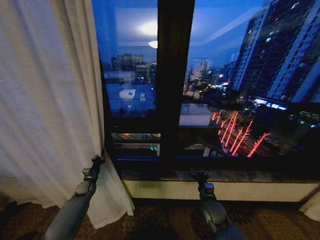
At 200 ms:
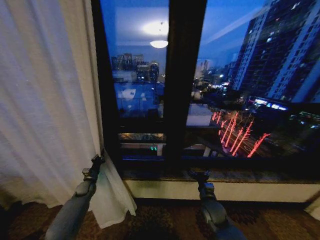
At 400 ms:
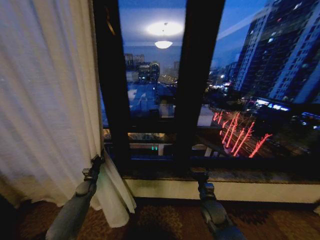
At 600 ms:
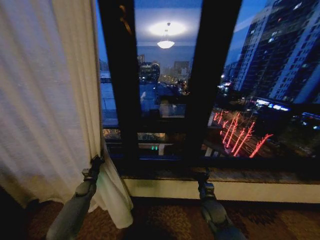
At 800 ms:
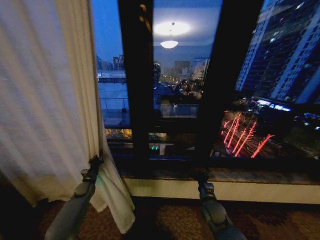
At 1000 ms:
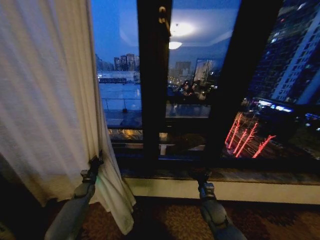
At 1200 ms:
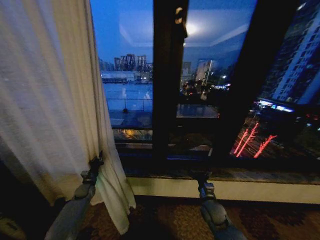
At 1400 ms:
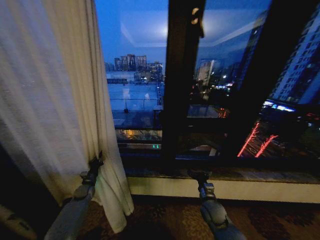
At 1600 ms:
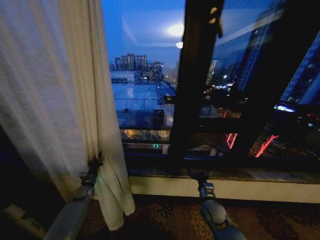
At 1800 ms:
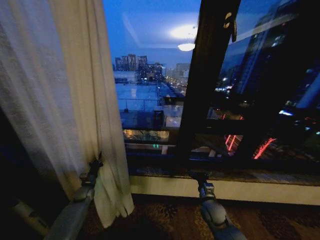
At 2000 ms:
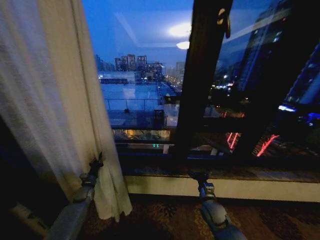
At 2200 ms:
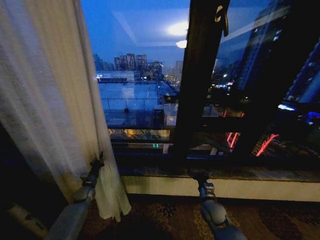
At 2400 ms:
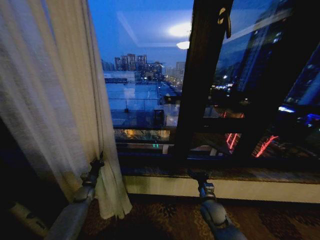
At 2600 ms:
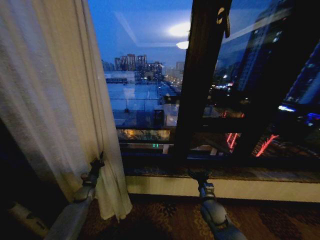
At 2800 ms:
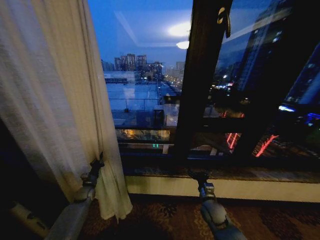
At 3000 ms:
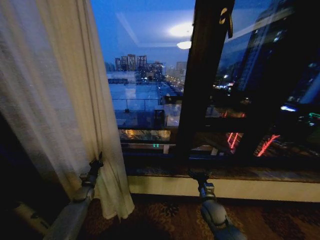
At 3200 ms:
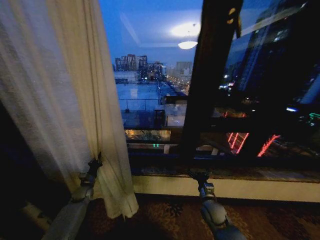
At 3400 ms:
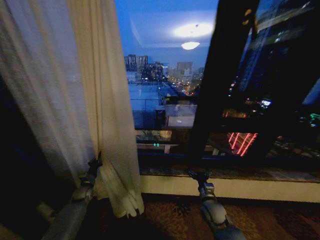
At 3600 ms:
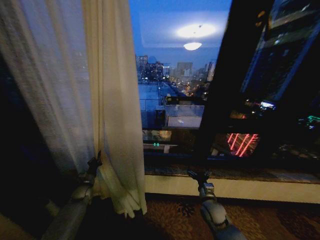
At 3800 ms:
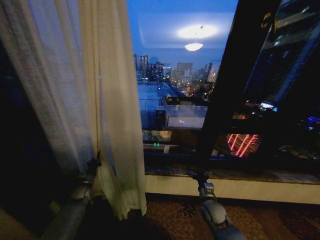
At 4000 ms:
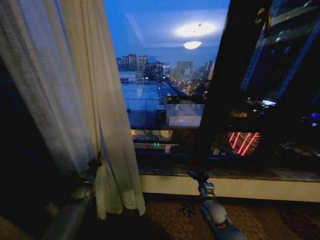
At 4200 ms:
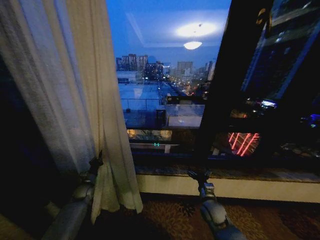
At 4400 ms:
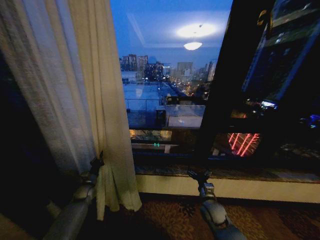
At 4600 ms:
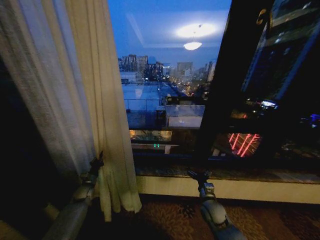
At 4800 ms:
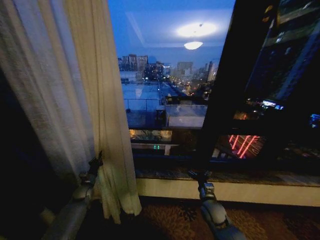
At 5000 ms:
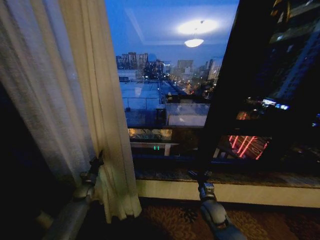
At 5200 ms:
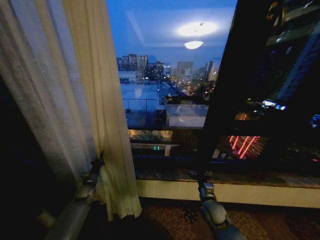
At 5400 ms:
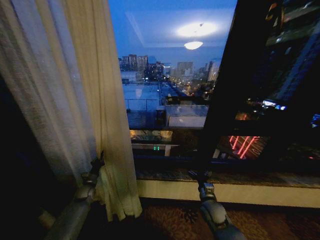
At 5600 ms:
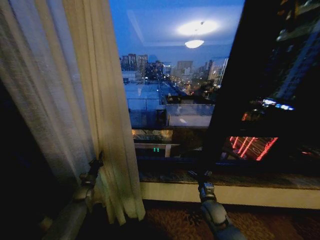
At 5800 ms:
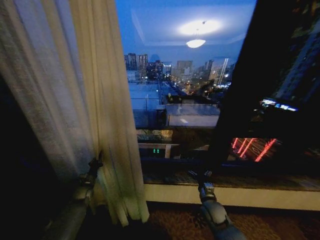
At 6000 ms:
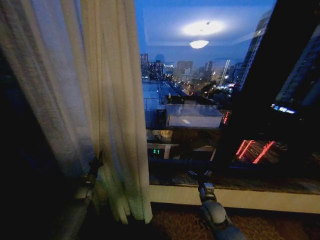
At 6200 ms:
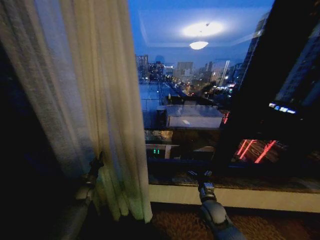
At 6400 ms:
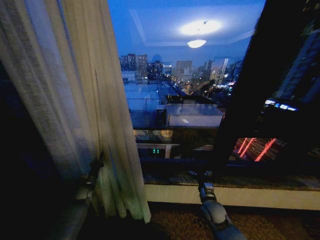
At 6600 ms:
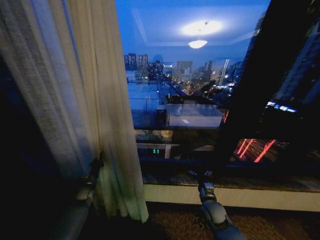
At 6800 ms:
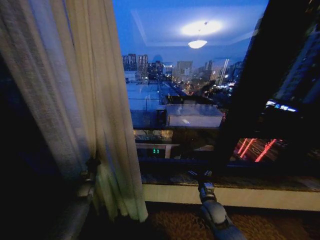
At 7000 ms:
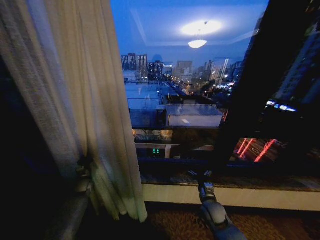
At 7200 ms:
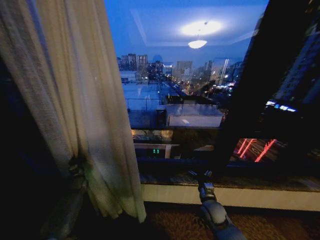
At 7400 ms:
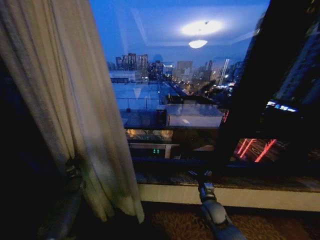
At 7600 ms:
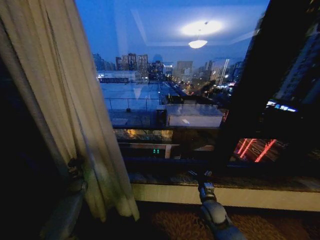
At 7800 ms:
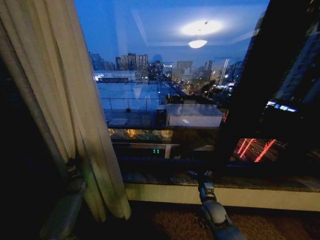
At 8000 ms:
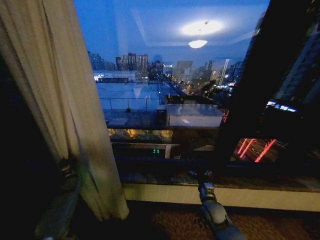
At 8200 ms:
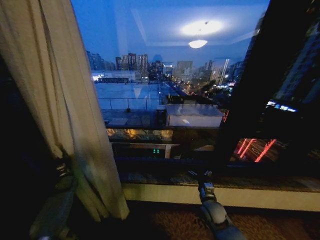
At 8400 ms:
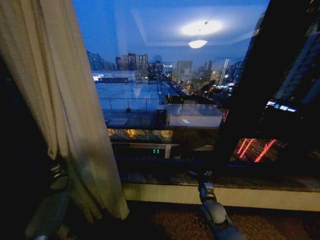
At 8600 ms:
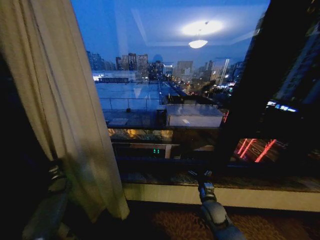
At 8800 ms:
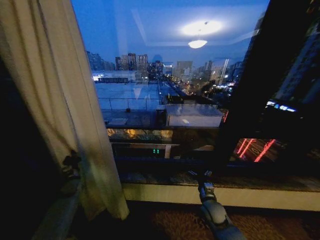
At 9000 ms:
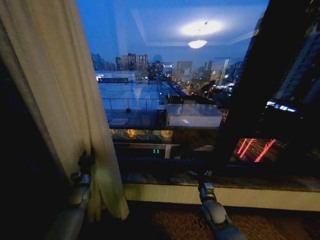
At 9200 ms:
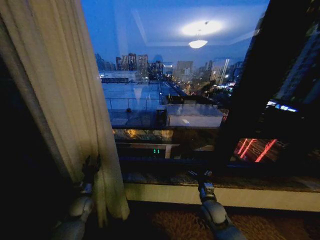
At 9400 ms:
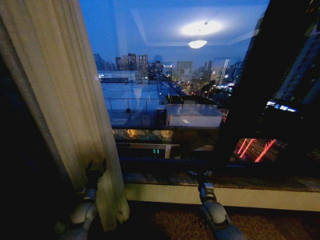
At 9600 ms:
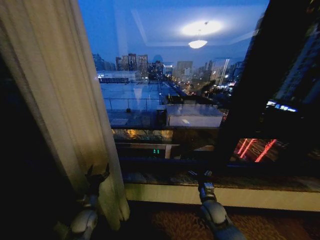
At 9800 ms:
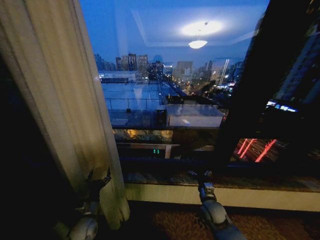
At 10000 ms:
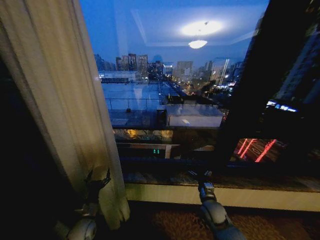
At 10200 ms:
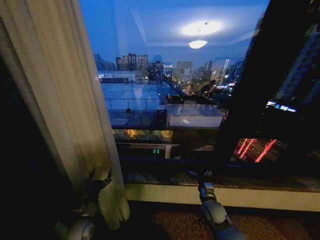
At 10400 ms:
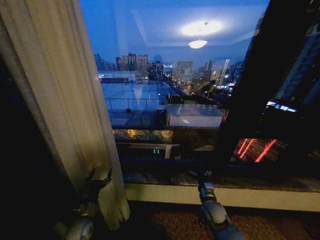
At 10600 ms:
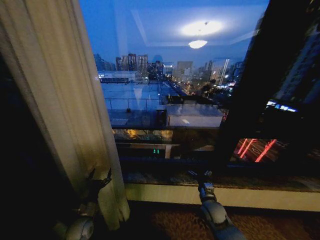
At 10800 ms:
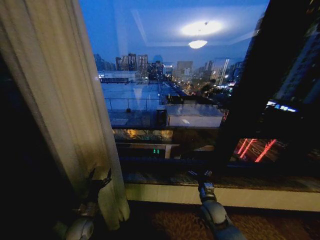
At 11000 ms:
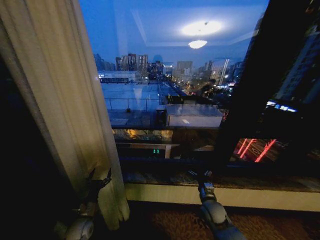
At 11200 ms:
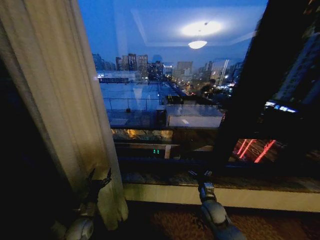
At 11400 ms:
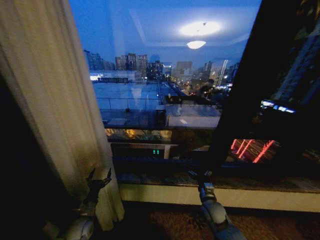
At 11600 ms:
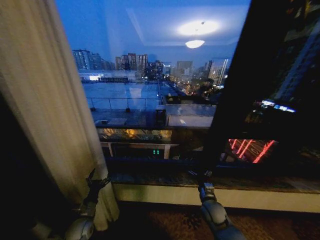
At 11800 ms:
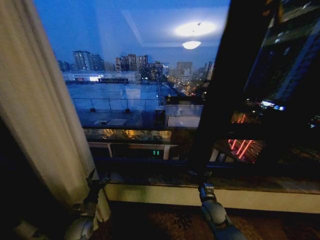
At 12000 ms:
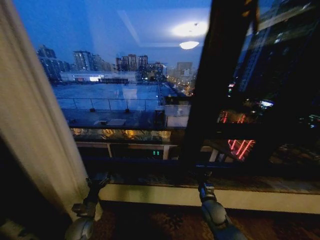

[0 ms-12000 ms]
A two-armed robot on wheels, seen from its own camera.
Task of the whole recording: Open the curtains by pulling them apart, changing their state from closed to fully open.
1600 ms to 3000 ms: There are only small adjustments of the grippers.
6000 ms to 7600 ms: The left gripper changes place by approximately 5 cm.
7600 ms to 9000 ms: The left gripper moves roughly 10 cm.
9000 ms to 10400 ms: The left gripper travels backward and to the right by approximately 15 cm, and opens.

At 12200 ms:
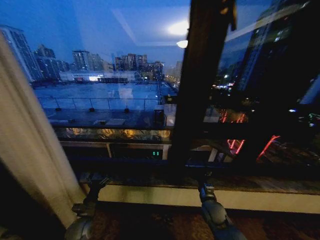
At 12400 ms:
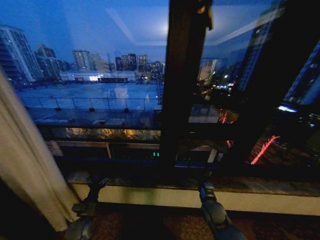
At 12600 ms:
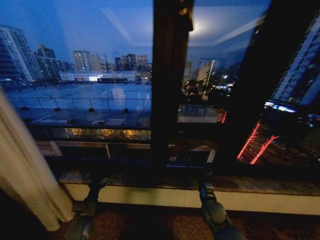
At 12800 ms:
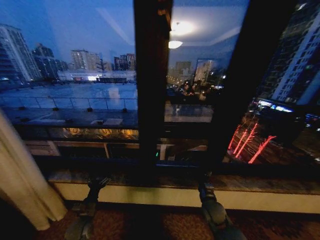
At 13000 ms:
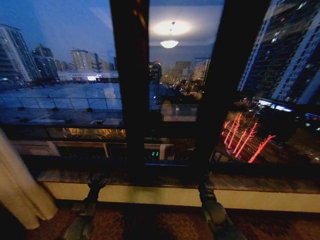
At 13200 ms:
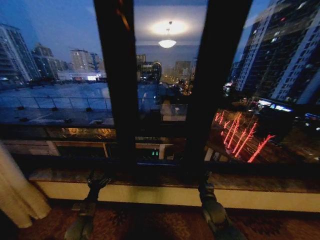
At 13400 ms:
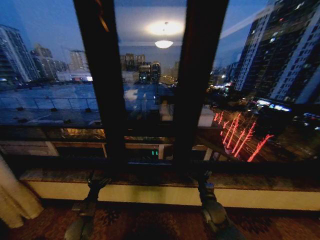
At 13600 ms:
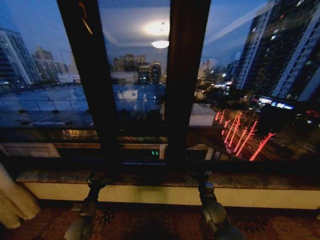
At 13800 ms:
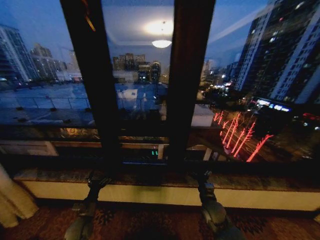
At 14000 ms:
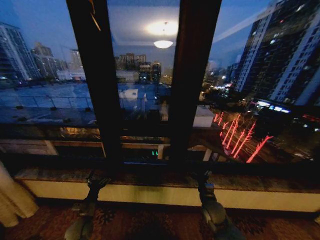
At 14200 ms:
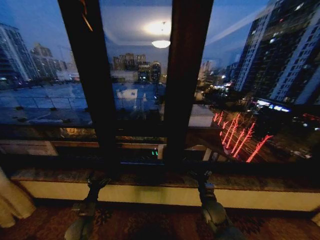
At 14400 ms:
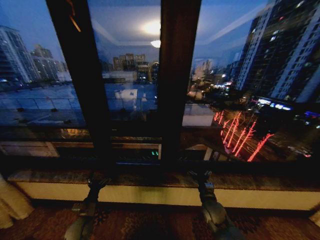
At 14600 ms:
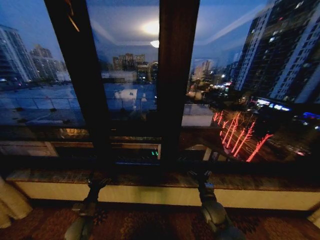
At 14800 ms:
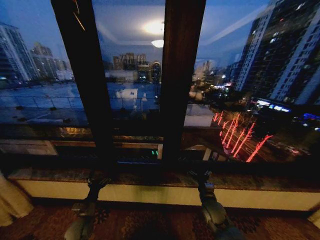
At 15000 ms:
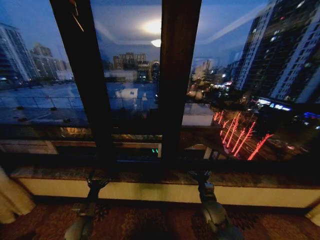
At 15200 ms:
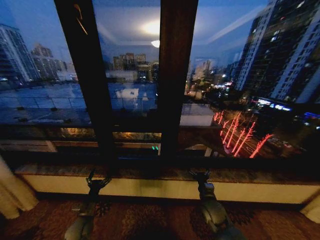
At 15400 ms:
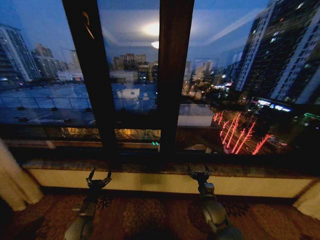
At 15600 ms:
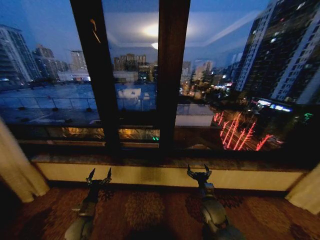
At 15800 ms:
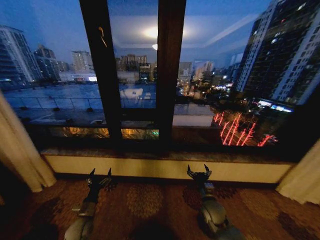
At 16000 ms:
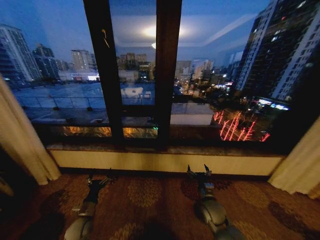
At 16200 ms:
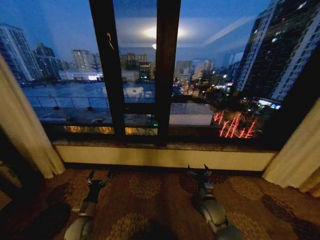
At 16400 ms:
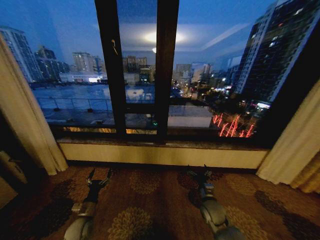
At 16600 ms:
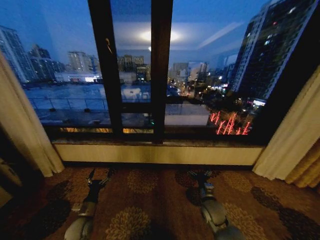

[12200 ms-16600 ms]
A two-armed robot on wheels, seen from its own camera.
Task of the whole recording: Open the curtains by pulling them apart, changing their state from closed to fully open.
13600 ms to 15200 ms: Both grippers stay put.
